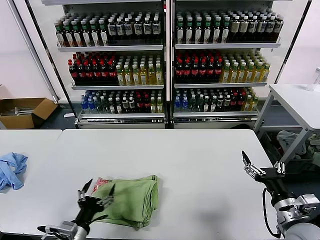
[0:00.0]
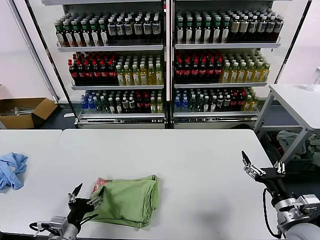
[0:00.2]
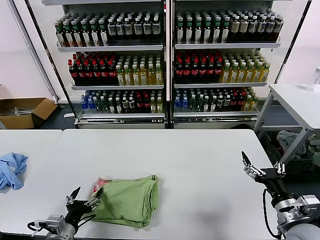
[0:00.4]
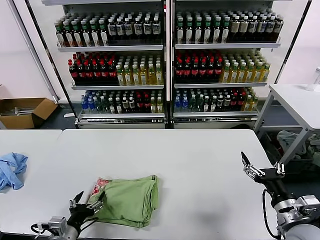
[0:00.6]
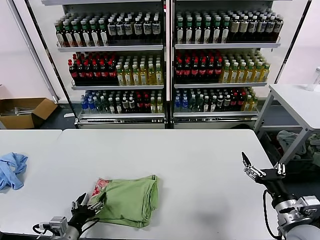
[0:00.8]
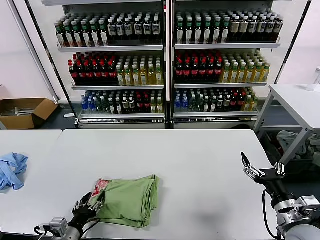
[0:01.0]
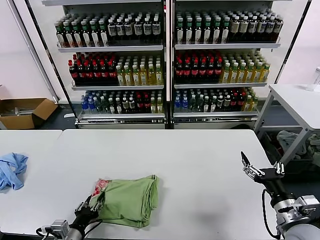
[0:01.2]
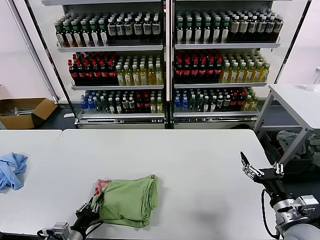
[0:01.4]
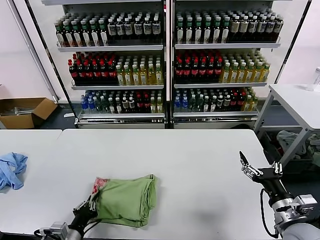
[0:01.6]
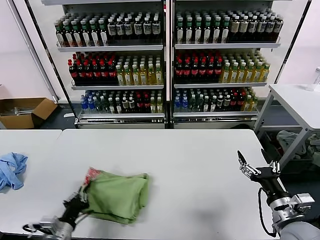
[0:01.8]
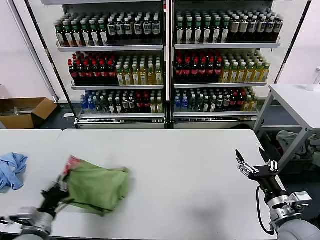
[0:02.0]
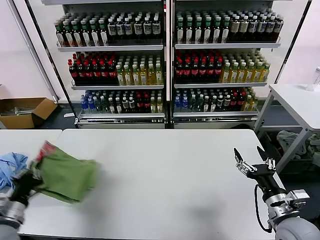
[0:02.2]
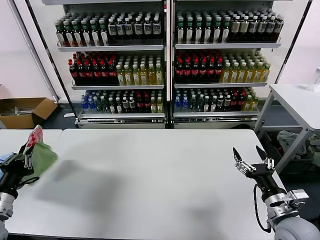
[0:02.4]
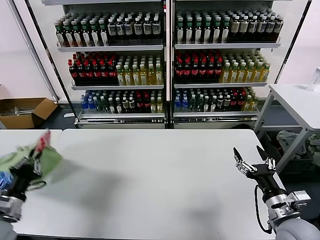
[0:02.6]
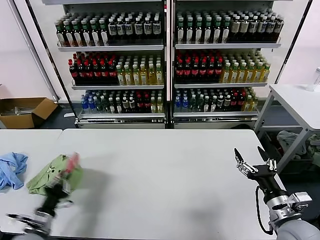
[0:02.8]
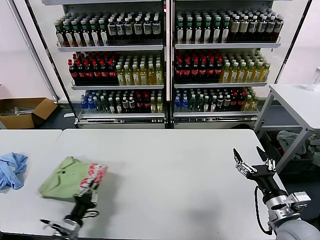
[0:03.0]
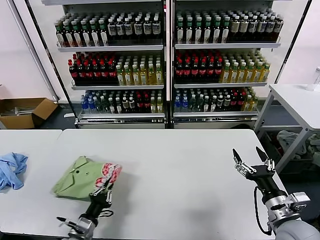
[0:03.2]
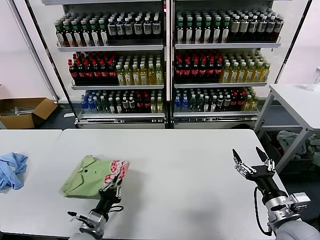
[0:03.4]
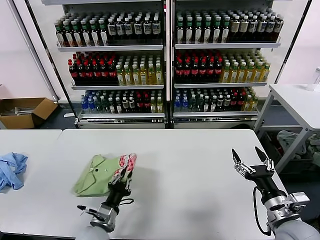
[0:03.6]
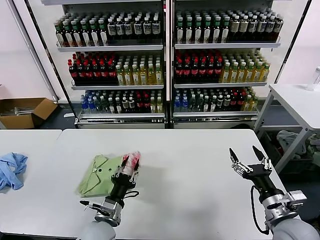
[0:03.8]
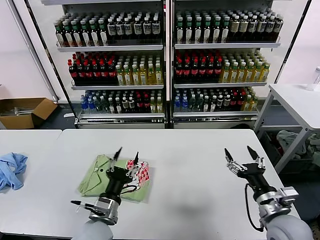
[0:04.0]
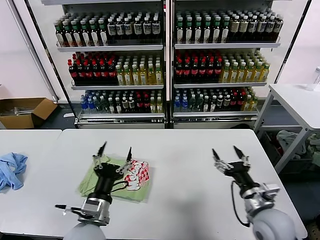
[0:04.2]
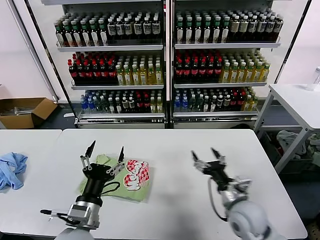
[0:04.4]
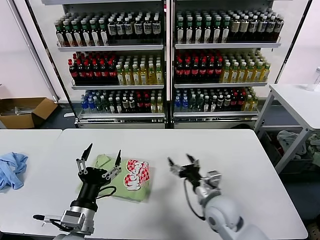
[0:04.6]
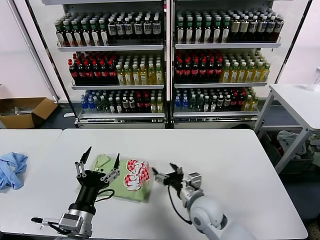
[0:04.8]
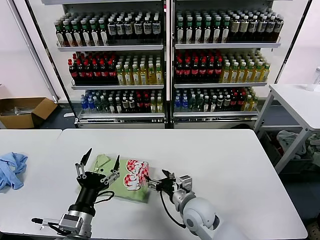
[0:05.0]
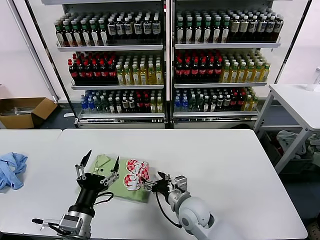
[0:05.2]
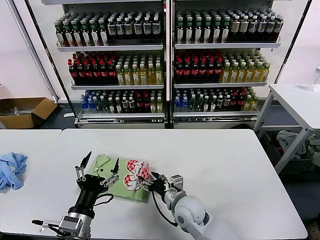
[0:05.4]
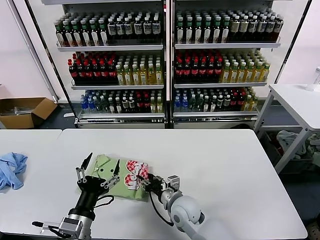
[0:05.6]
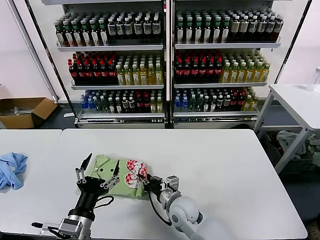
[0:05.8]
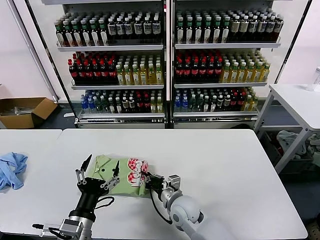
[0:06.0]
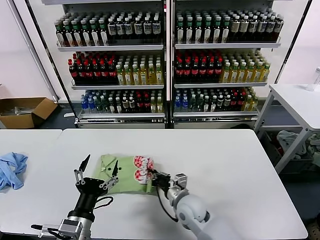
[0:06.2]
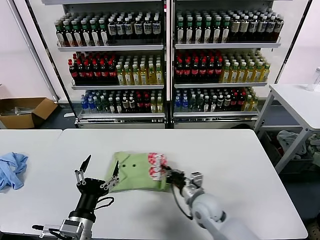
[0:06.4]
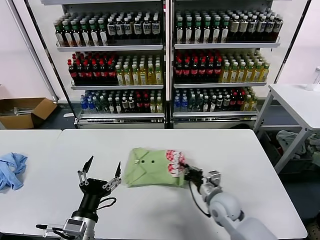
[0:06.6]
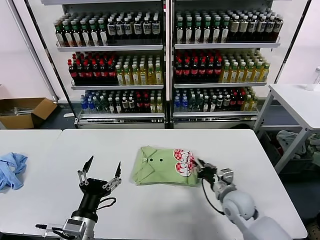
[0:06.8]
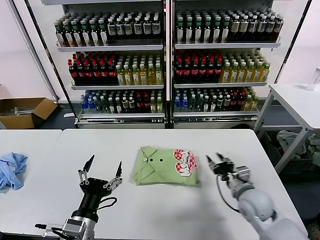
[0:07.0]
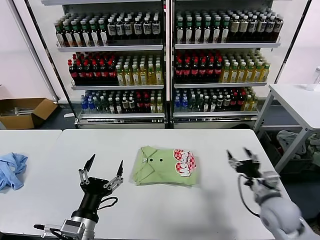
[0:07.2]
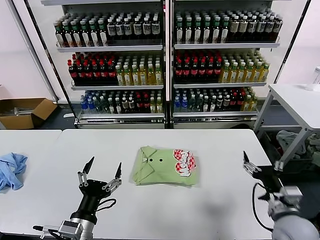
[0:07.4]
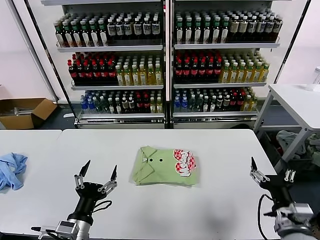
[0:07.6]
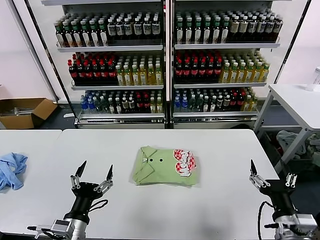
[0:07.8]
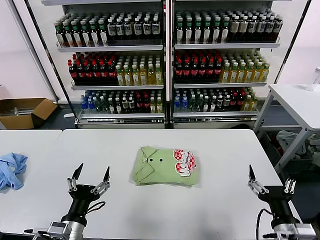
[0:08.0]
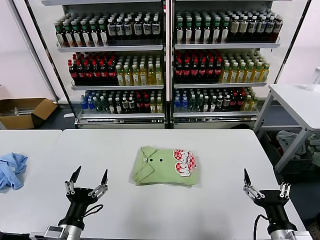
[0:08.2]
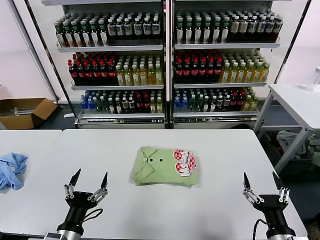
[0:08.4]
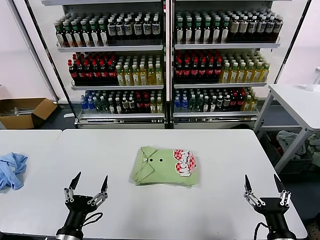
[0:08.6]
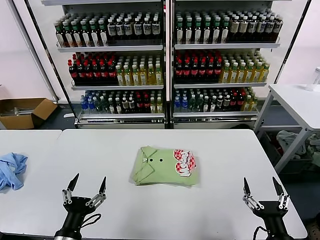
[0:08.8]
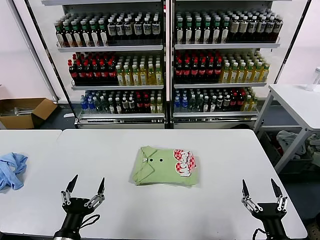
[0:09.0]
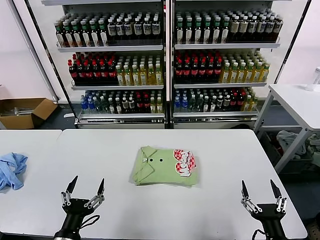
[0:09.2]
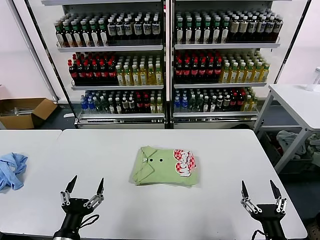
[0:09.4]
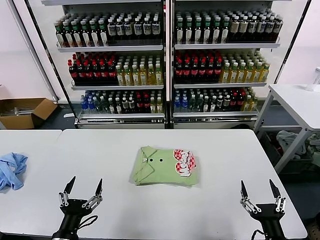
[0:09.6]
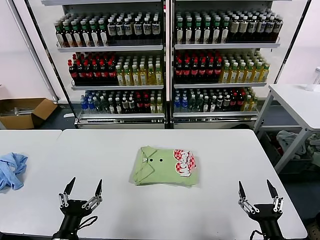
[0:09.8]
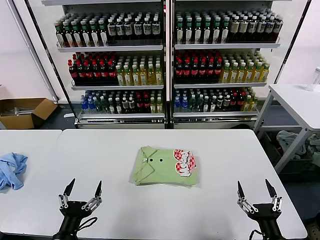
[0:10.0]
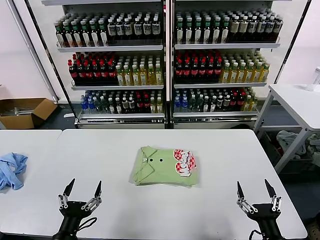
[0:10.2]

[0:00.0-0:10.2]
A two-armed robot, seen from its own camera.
Task of the whole recording: fold and organize the clothes.
Step, 0:00.0 to 0:03.8: Flip the folded clothes over with left gripper.
Step, 0:04.0 to 0:06.8: Drag the clothes to the center of the table.
0:00.0 to 0:01.4: The left gripper moves downward, some 5 cm, and closes.
0:01.4 to 0:03.0: The left gripper moves to the left, some 5 cm, and reaches roughly 15 cm upward, then returns.
0:03.0 to 0:04.4: The right gripper goes about 10 cm to the left and forward. Meanwhile the left gripper shifts approximately 20 cm to the right and upward, and opens its fingers.
0:04.4 to 0:05.8: The right gripper shifts approximately 20 cm to the left and downward, and closes up.
0:05.8 to 0:07.2: The right gripper moves to the right, roughly 25 cm, and closes, then opens again.
0:07.2 to 0:08.8: The left gripper ends up about 5 cm from where it was; the right gripper heads backward, covering about 20 cm.
0:08.8 to 0:10.2: There are only small adjustments of the grippers.

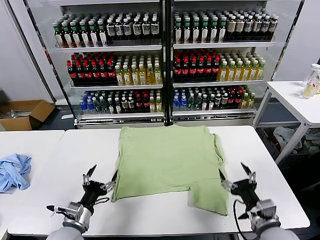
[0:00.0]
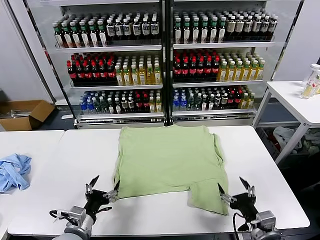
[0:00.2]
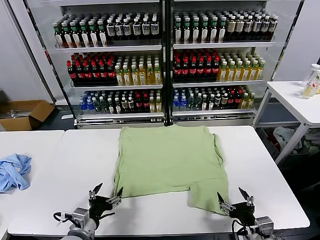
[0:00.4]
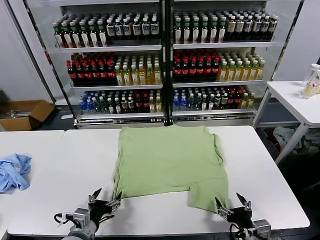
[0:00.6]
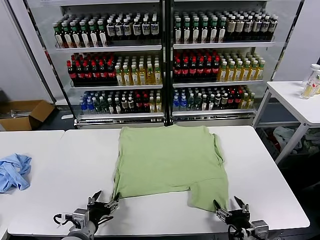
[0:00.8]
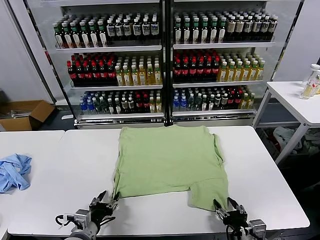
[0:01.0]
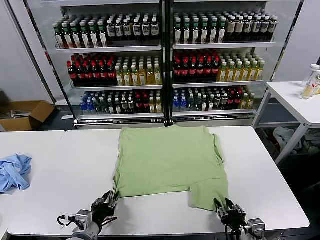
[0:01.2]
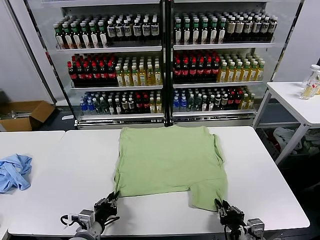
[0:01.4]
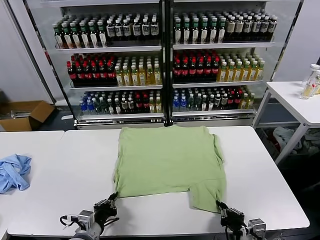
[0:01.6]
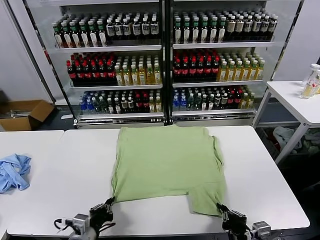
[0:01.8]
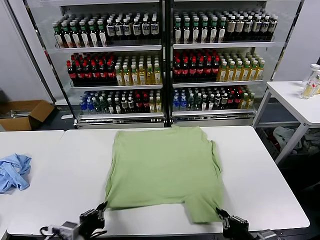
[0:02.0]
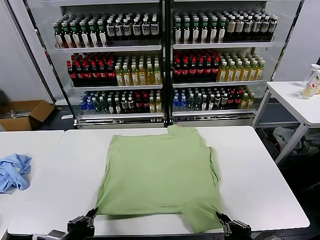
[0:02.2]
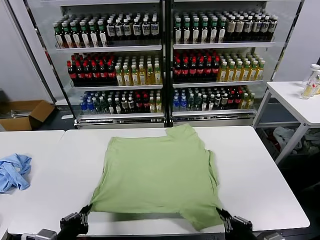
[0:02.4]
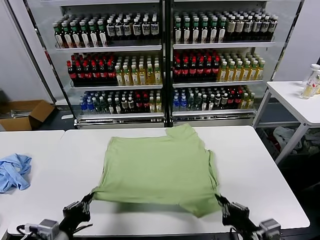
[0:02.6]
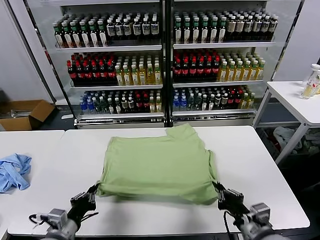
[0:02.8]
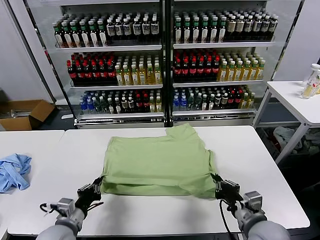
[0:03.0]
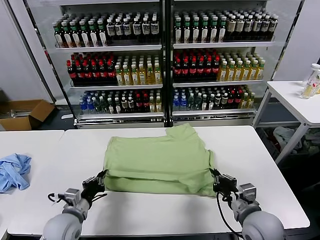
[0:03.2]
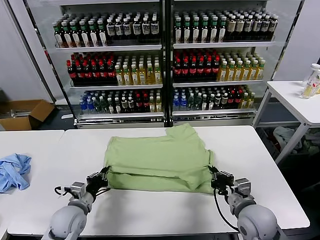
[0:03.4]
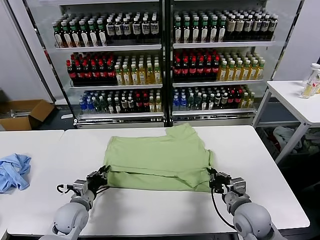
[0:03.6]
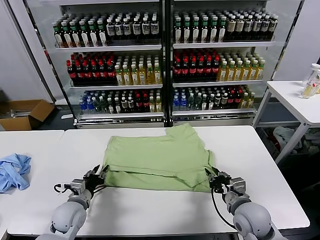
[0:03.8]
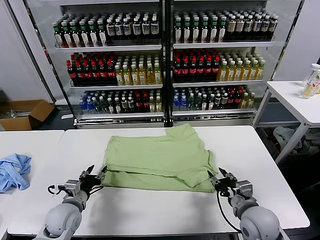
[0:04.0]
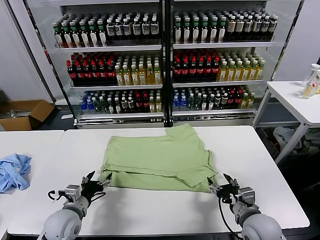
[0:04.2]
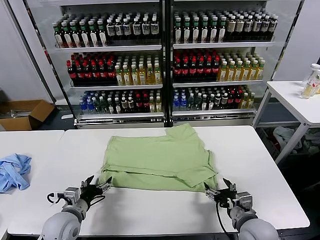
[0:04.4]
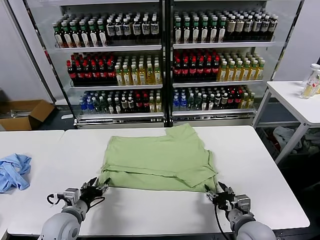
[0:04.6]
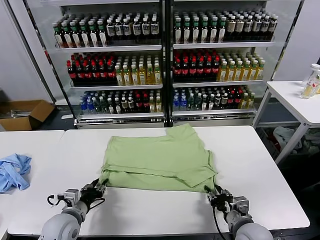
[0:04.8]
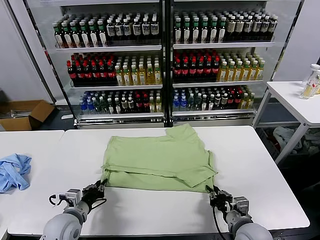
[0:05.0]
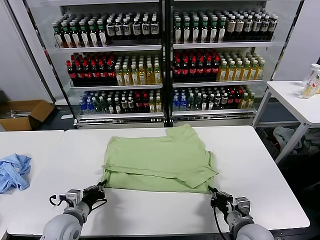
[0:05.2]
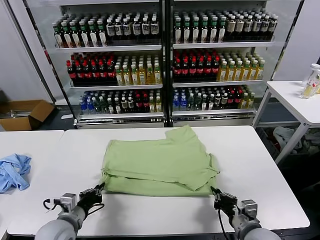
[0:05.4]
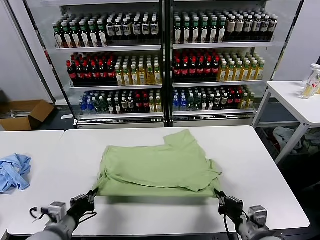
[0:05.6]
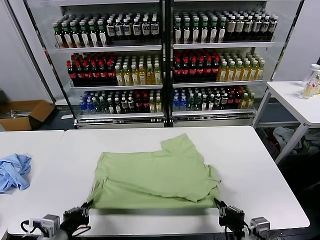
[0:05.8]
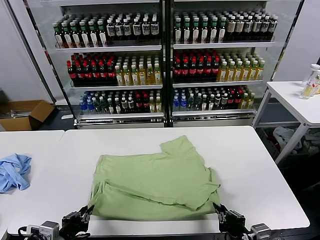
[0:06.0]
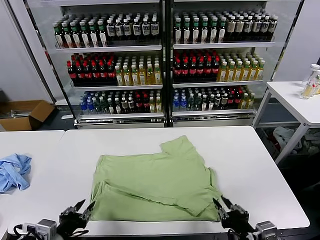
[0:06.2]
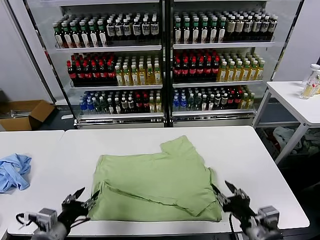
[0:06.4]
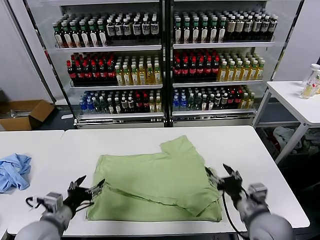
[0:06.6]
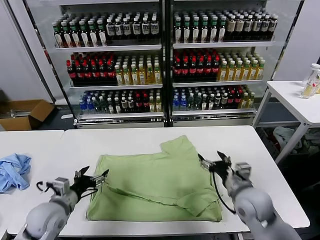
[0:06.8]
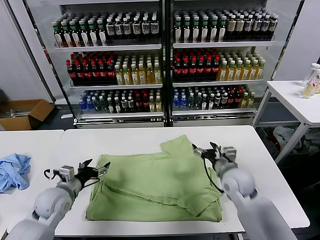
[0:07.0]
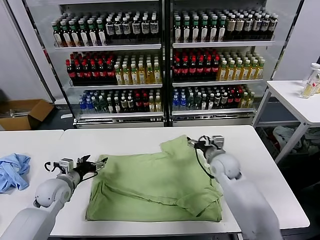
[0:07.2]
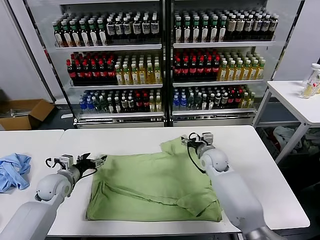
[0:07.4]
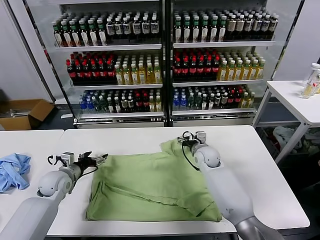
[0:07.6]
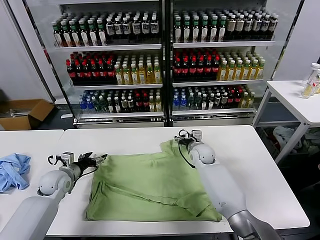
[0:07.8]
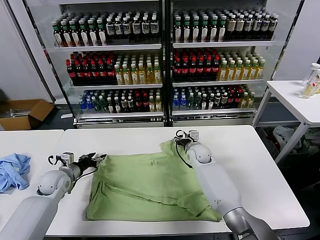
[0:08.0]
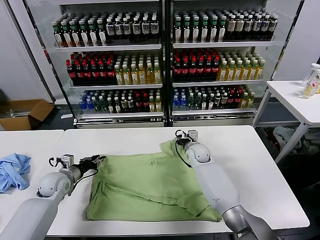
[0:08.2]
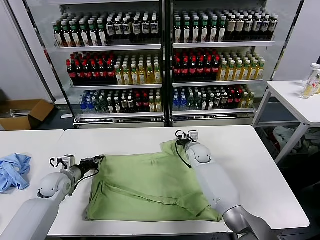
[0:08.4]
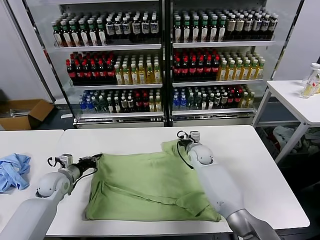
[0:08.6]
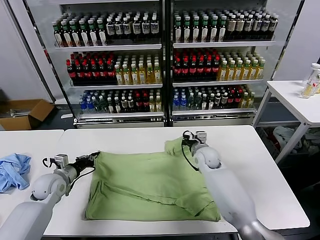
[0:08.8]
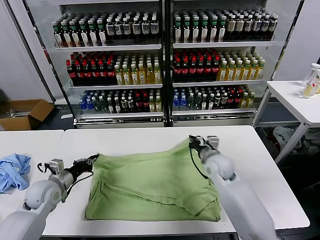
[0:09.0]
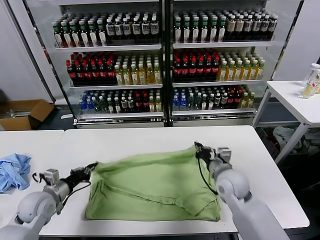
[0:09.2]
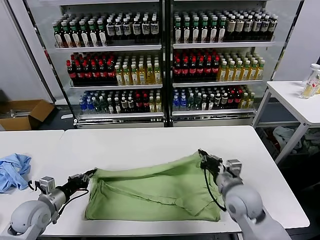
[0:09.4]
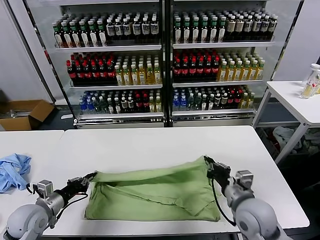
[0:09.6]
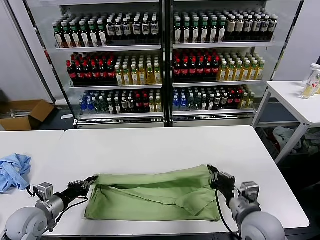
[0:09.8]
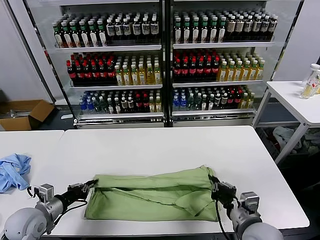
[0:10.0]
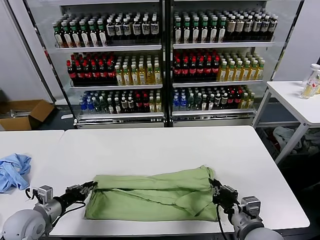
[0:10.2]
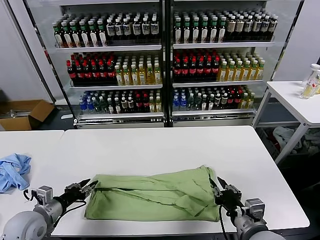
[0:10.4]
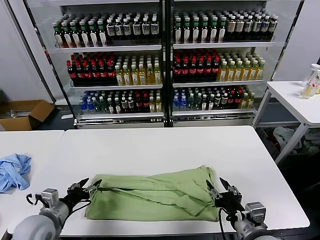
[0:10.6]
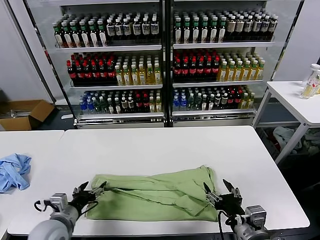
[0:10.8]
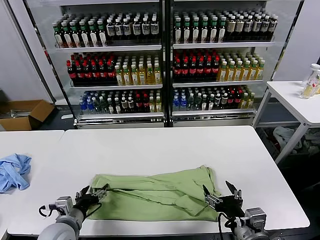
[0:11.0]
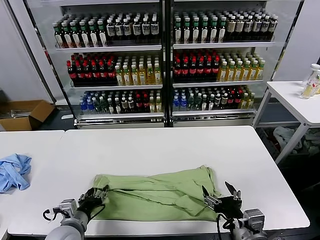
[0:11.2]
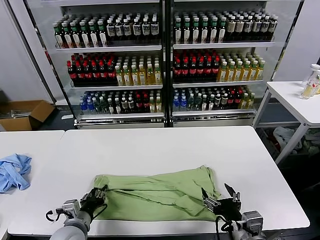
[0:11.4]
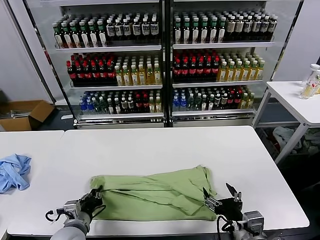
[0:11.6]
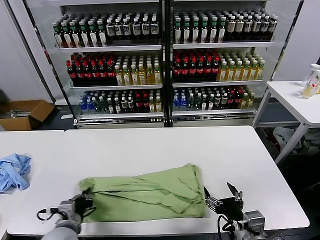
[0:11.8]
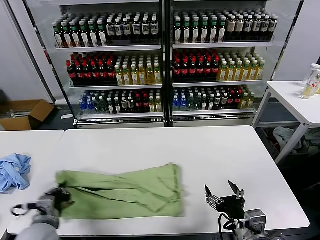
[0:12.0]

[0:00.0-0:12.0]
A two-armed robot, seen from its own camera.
Task of the whole recording: fold and organize the clothes.
Step, 0:00.0 to 0:02.0: use both grippers simultaneously to clamp the lower edge of the clothing fabric.
Step, 0:02.2 to 0:03.8: use both grippers to drag the lower edge of the fabric forward and fold it over the upper edge.
Step, 0:04.0 to 0:06.2: Drag the clothes downward with both gripper.
Step, 0:06.4 to 0:08.6: use both grippers simultaneously to clamp the upper edge of the clothing fabric.
Step, 0:08.8 to 0:10.4: use both grippers to drag the upper edge of the fabric backward and fold it over the lower edge.
Step, 0:10.6 to 0:11.6: use the left gripper to clamp the left edge of the fabric.
0:01.6 to 0:03.0: The left gripper shifts approximately 5 cm to the left. The right gripper shifts roughly 10 cm forward and upward.
0:03.0 to 0:04.4: The left gripper opens up. The right gripper goes approximately 5 cm downward, and opens its fingers.
0:04.4 to 0:06.0: Both grippers move backward and upward, some 15 cm. The left gripper closes its fingers, while the right gripper closes.
0:06.0 to 0:07.6: The two grippers go approximately 35 cm forward. The right gripper opens its fingers, while the left gripper opens its fingers.
0:07.6 to 0:09.0: The right gripper heads backward, covering about 10 cm, and closes; the left gripper shifts by some 5 cm, and closes up.
0:09.0 to 0:10.4: The left gripper travels backward by about 10 cm, and opens its fingers. The right gripper moves backward, some 25 cm, and opens up.
0:10.4 to 0:12.0: The left gripper shifts roughly 5 cm to the right, and closes; the right gripper opens its fingers.
